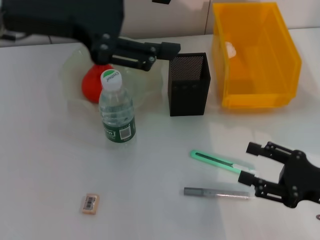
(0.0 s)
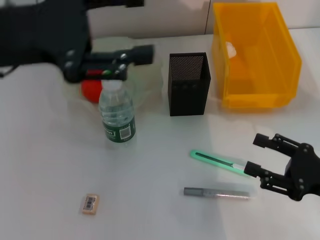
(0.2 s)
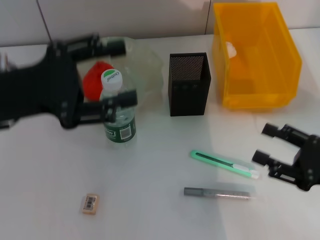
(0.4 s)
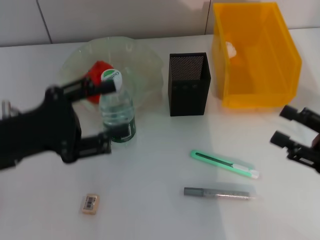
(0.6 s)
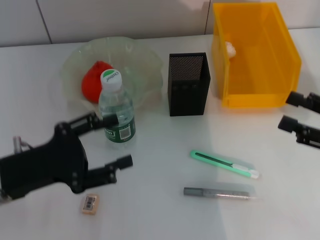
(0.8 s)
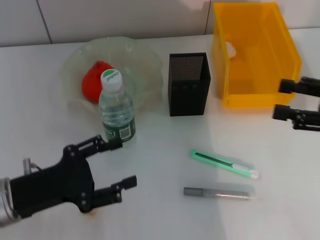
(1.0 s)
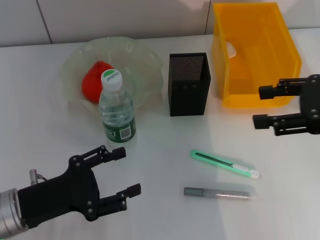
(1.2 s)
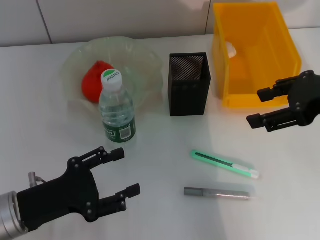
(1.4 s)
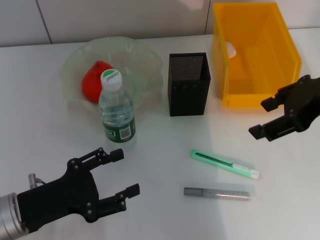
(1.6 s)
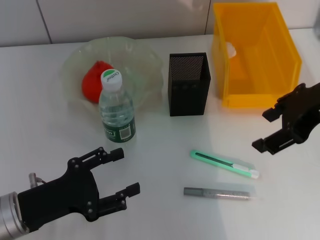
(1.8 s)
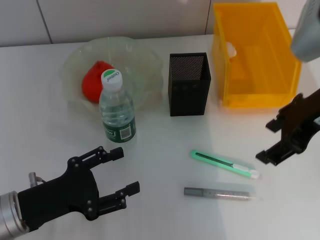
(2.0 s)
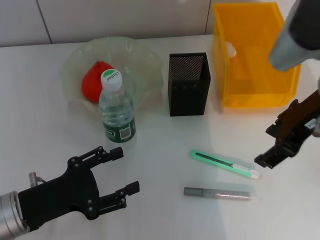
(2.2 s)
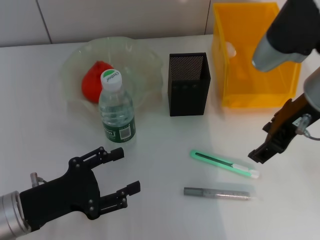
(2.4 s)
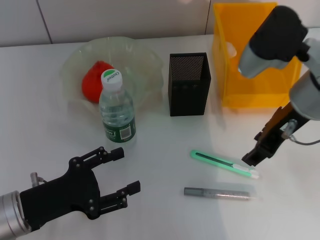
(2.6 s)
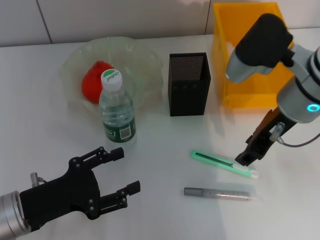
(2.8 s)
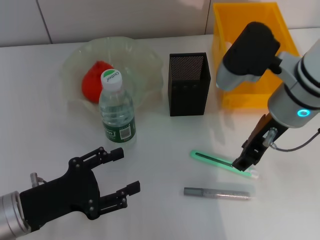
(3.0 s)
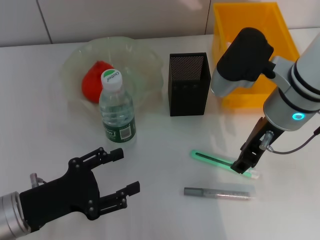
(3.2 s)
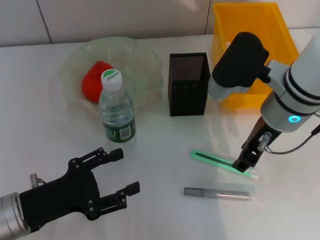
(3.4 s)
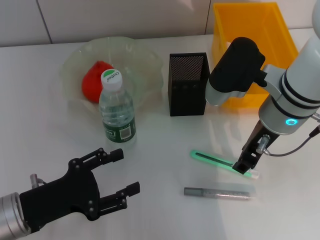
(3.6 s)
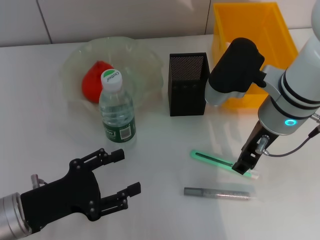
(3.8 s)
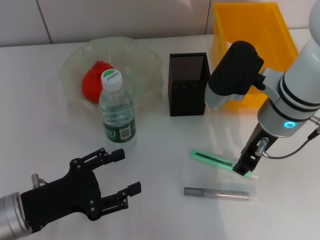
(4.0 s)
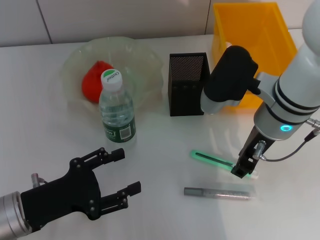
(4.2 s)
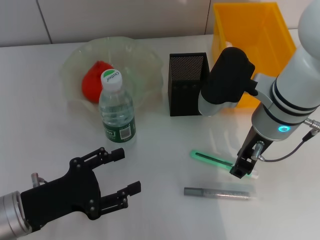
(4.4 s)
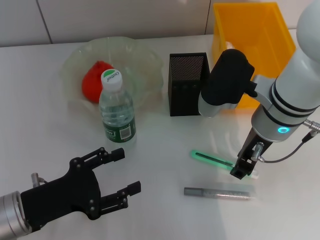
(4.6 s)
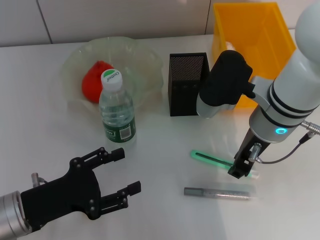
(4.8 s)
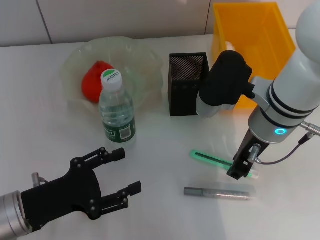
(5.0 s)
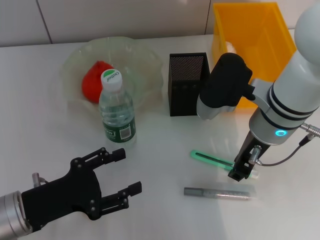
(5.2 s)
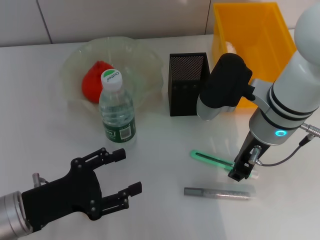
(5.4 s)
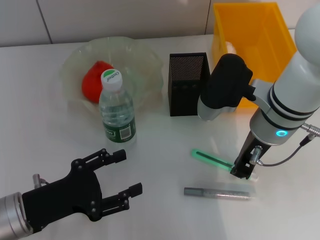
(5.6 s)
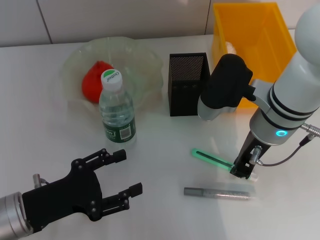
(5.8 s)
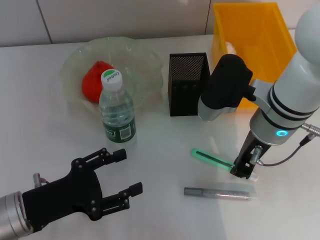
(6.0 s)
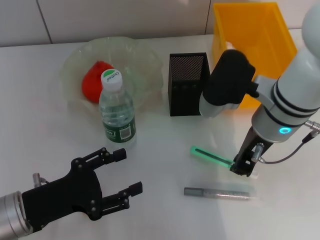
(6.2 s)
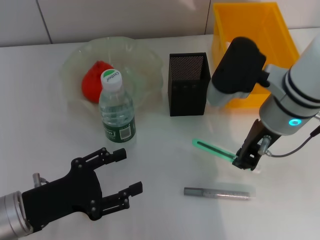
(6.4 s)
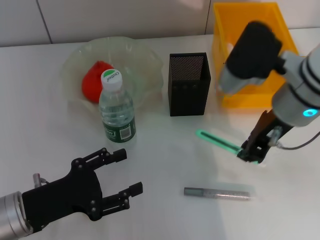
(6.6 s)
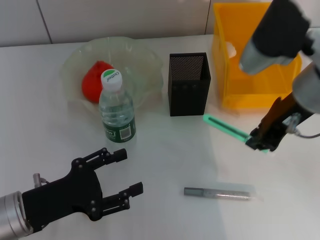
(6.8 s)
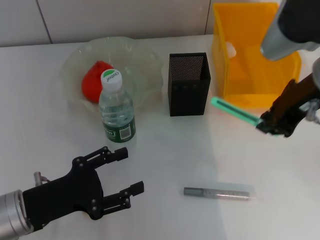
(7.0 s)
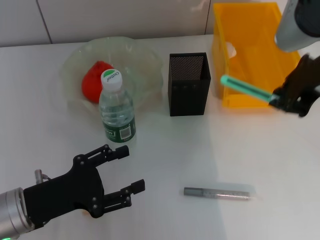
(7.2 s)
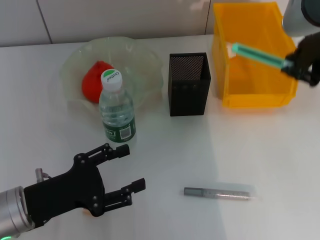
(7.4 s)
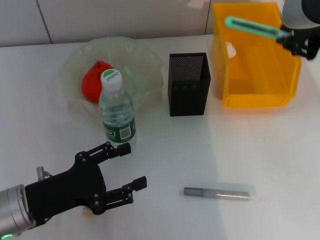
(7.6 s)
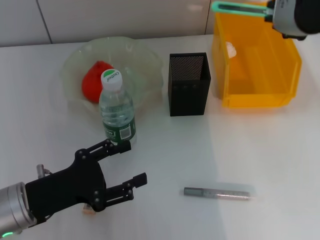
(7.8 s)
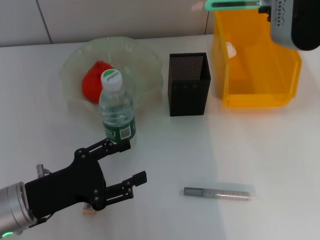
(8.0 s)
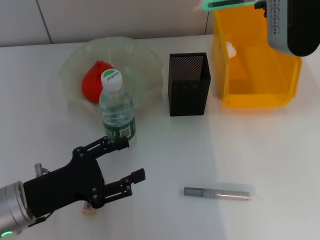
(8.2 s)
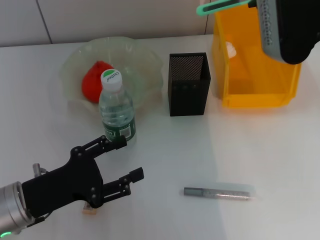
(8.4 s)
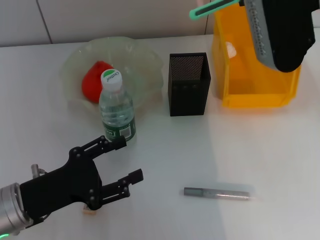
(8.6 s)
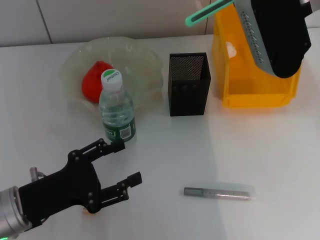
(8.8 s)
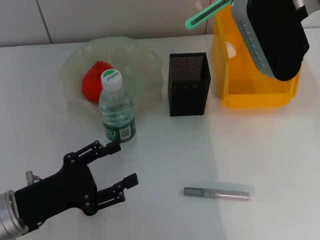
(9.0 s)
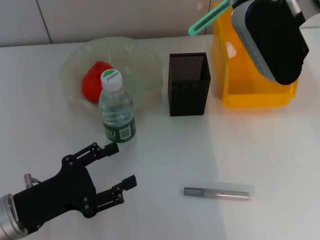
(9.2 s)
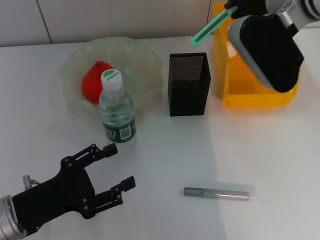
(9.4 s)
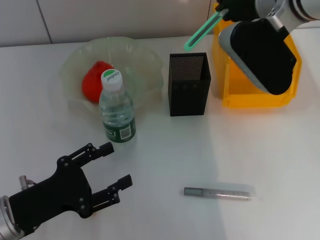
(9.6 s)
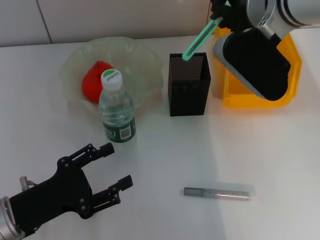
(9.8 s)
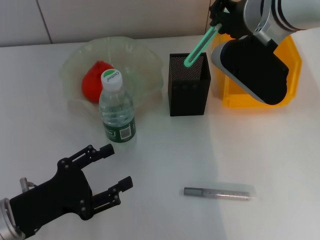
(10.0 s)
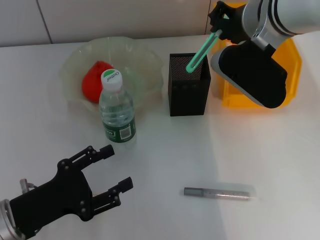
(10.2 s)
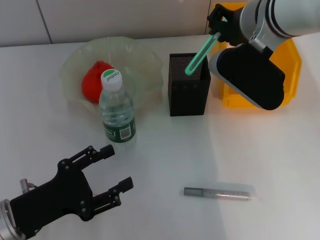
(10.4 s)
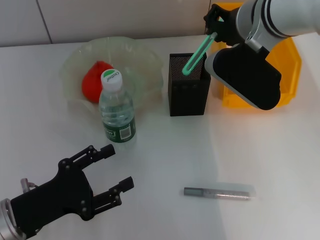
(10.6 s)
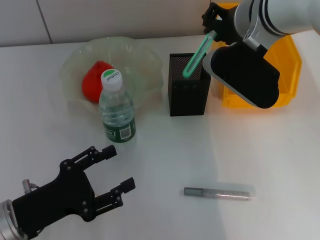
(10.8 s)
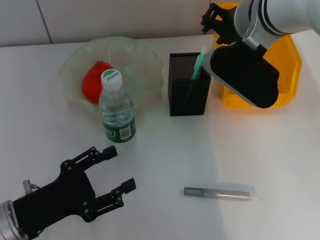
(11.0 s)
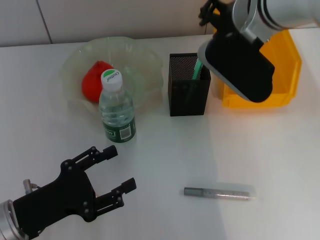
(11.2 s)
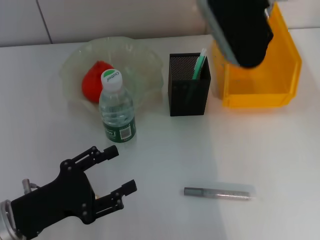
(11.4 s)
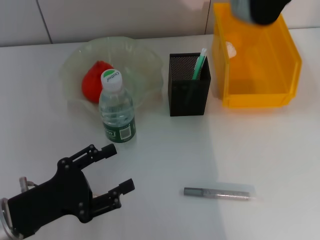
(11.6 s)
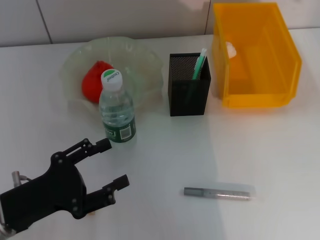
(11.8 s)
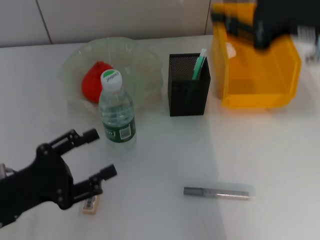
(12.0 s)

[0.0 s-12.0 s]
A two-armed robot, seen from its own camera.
Step, 0.0 to 5.8 s: Grab the blue utility knife with the right hand.
Step, 6.0 to 11.4 s: Place the blue utility knife into the pen holder with the right hand.
0.0 to 1.6 s: The right gripper goes approximately 20 cm upward and forward. The left gripper travels downward and backward by about 25 cm.
1.6 to 3.0 s: The right gripper heads to the left and downward, covering about 10 cm.
3.0 to 4.4 s: The grippers move only a little.
4.4 to 6.0 s: The right gripper closes up.
6.0 to 7.6 s: The right gripper travels upward by roughly 15 cm.
7.6 to 9.0 s: The right gripper moves forward, some 5 cm.
9.0 to 10.4 s: The right gripper changes place by some 5 cm.
10.4 to 12.0 s: The right gripper shifts about 15 cm to the right and backward.

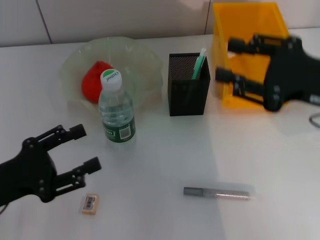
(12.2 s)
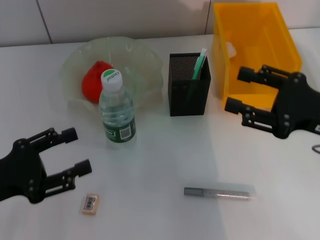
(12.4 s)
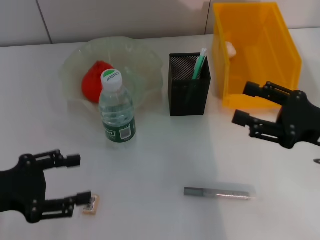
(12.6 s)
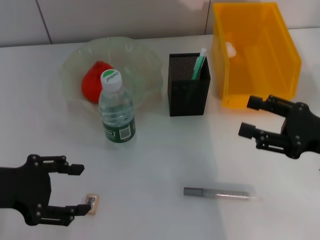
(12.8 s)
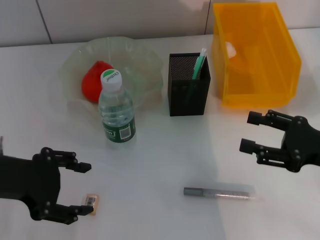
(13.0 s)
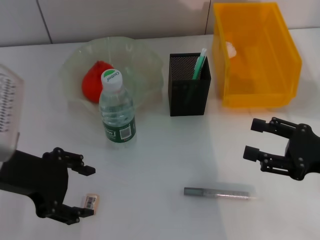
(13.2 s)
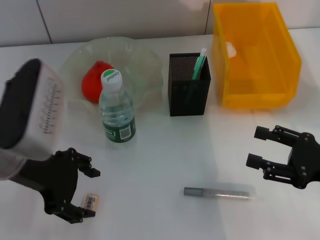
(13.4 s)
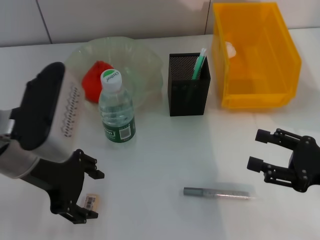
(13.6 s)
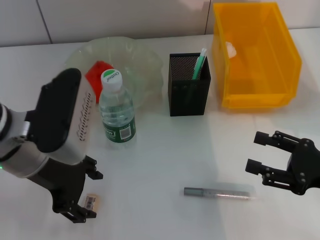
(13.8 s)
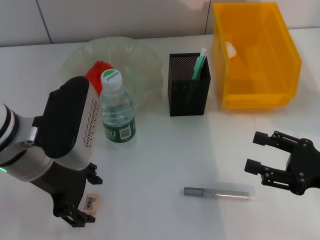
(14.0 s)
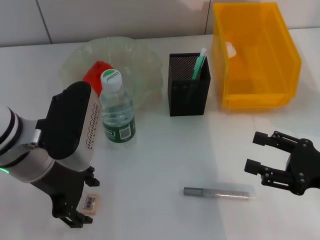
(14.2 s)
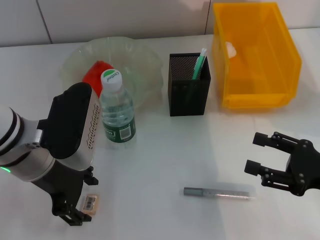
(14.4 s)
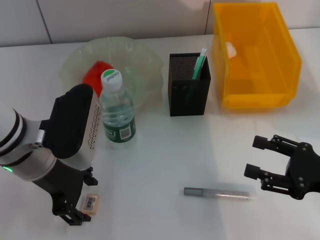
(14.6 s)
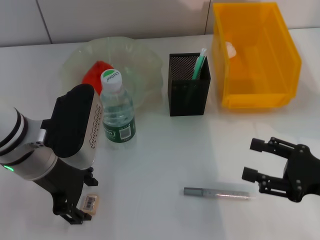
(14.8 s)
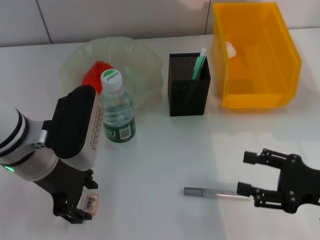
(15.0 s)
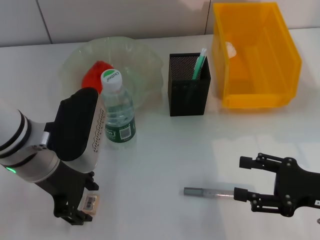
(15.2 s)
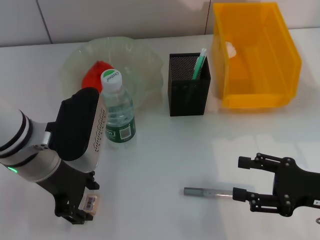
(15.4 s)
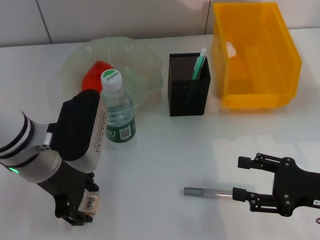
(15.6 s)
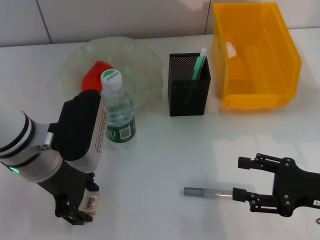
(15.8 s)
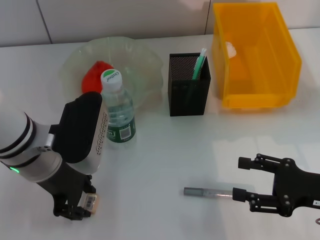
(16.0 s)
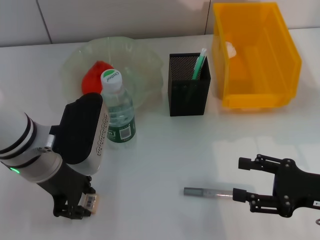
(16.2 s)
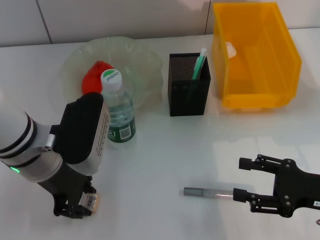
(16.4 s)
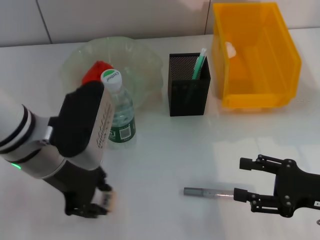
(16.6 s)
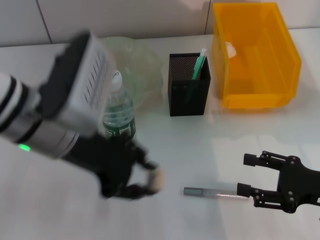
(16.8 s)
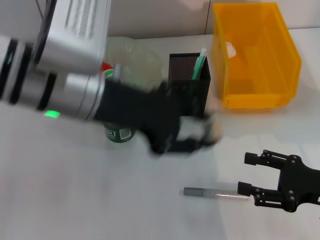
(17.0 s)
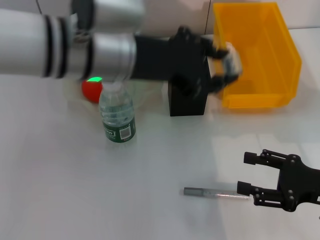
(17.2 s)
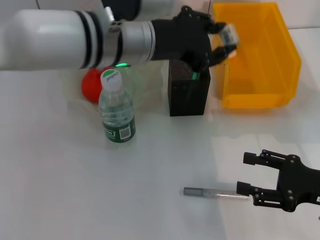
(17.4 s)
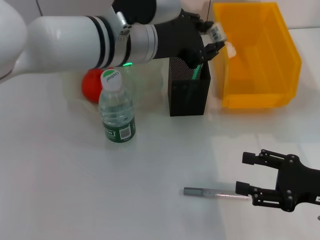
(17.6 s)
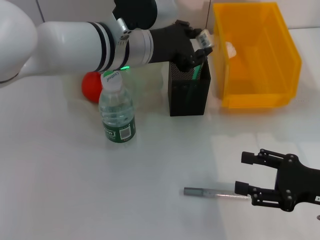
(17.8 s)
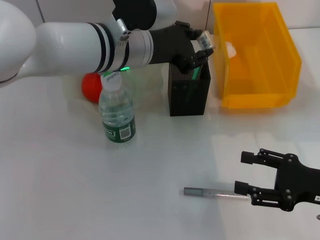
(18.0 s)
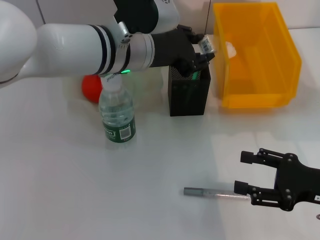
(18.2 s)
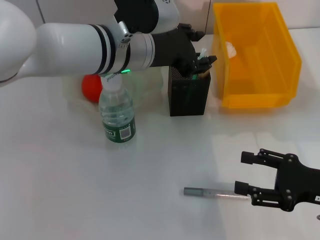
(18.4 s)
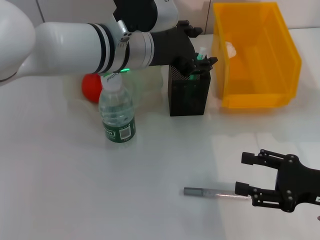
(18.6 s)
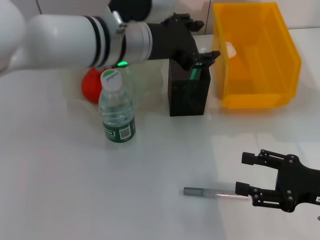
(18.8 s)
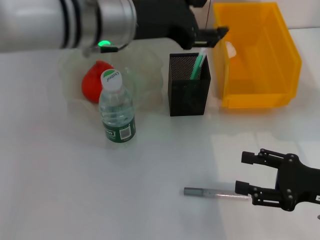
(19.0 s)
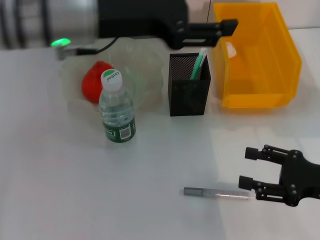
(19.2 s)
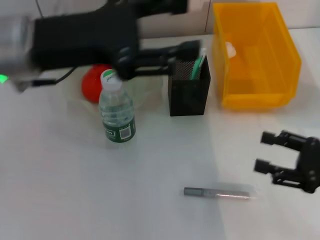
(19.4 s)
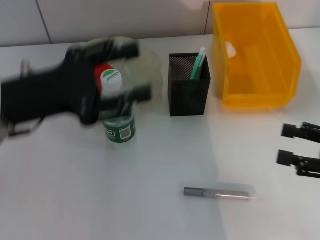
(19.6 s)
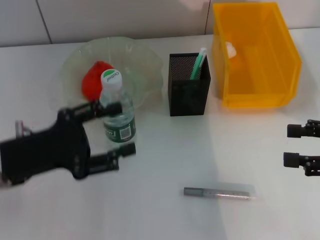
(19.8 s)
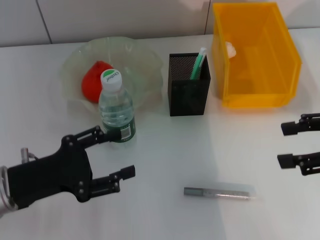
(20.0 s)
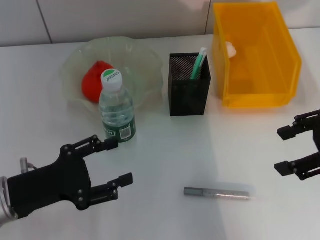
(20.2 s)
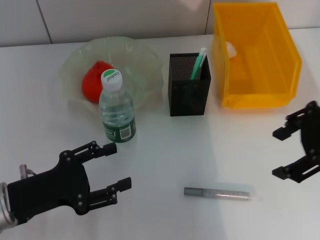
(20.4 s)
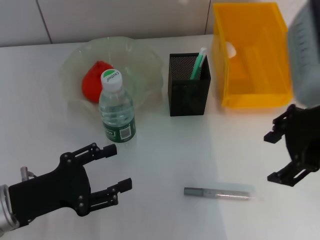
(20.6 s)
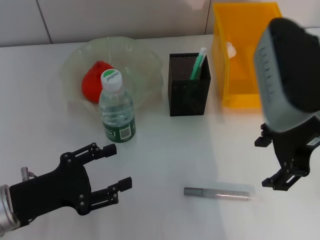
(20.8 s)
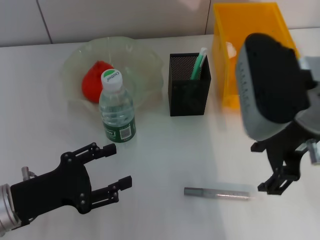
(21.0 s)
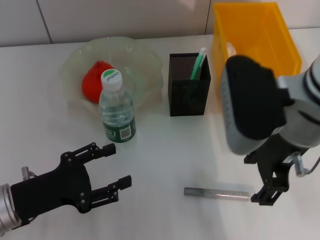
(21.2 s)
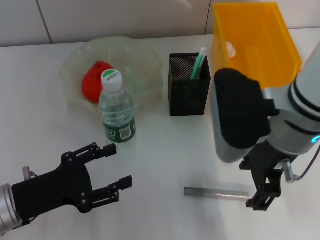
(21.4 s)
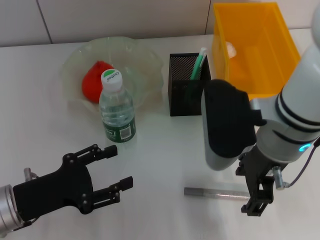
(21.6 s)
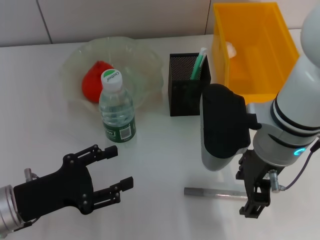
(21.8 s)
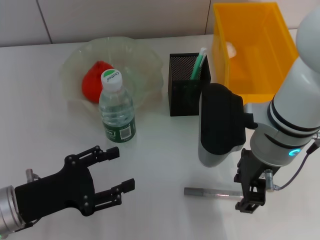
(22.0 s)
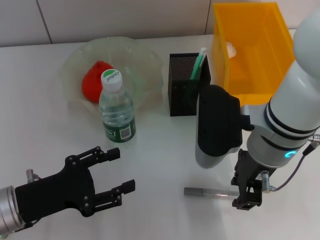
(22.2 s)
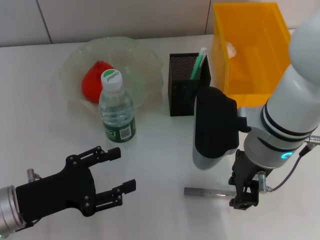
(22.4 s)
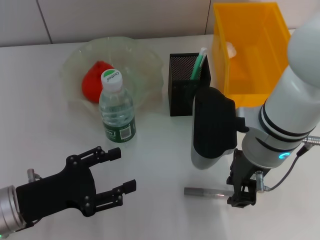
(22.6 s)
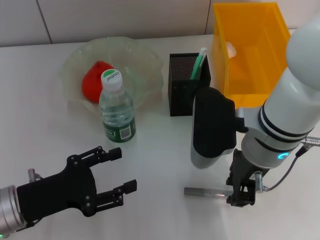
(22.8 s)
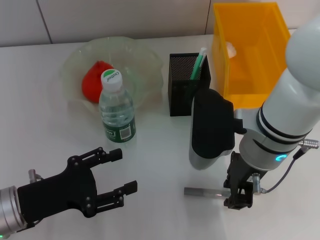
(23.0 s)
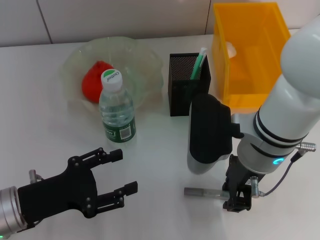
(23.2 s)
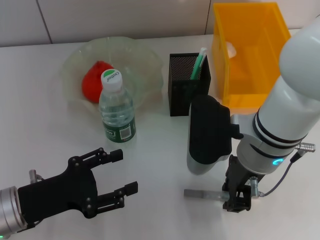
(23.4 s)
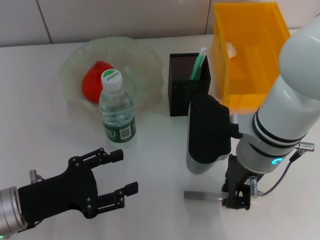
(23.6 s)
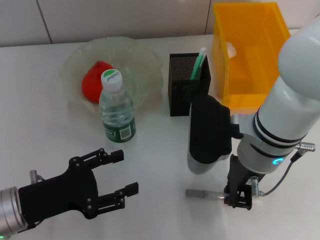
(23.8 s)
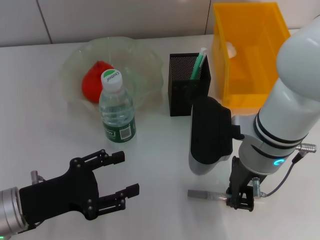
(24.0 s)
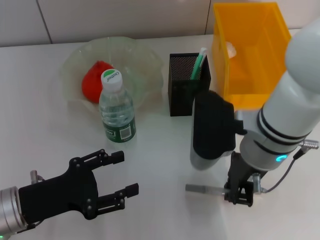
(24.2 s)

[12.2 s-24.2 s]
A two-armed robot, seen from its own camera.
Step, 12.2 to 16.0 s: Grab the eraser with the left hand.
Step, 16.2 to 18.6 s: Place the eraser into the pen holder with the left hand.
Step, 19.0 to 23.6 s: Grab the gray glue with the right hand.
12.2 to 13.8 s: The left gripper moves to the right, upward and forward, approximately 15 cm. The right gripper is displaced downward by about 10 cm, and opens its fingers.
13.8 to 15.2 s: The grippers move only a little.
15.2 to 16.6 s: The left gripper closes its fingers.
16.6 to 18.2 s: The left gripper is displaced to the right and forward by approximately 15 cm.
18.2 to 19.8 s: The right gripper moves upward, about 10 cm. Meanwhile the left gripper heads to the left and backward, covering some 25 cm, and opens its fingers.
19.8 to 21.2 s: The right gripper moves to the left, some 20 cm; the left gripper moves downward, roughly 5 cm.
21.2 to 22.6 s: The right gripper heads downward, covering approximately 5 cm, and closes.
22.6 to 24.2 s: The right gripper closes up.
